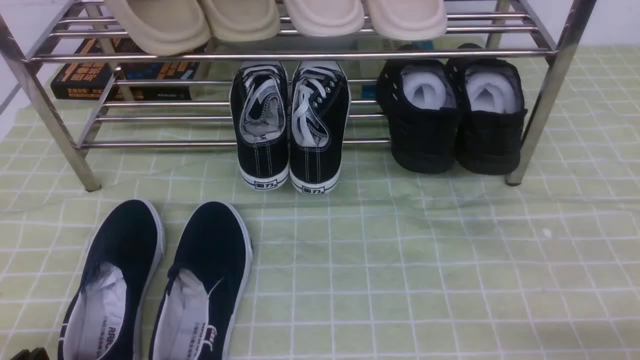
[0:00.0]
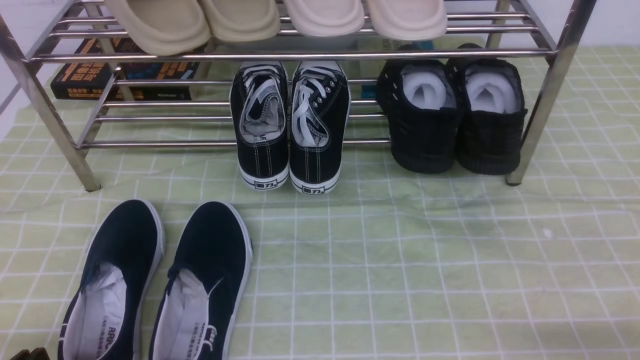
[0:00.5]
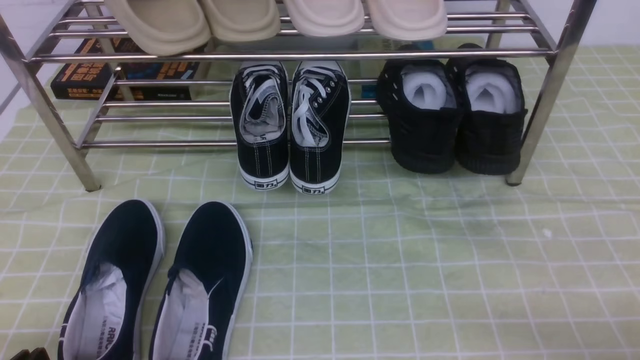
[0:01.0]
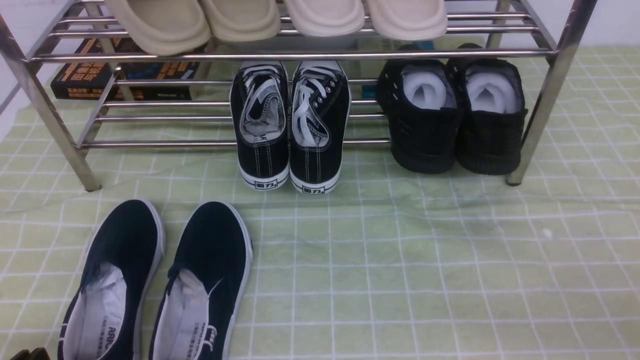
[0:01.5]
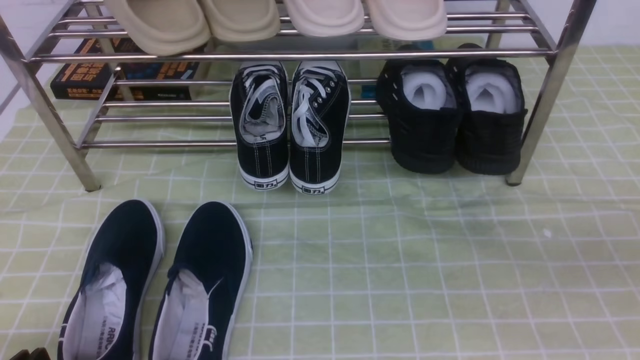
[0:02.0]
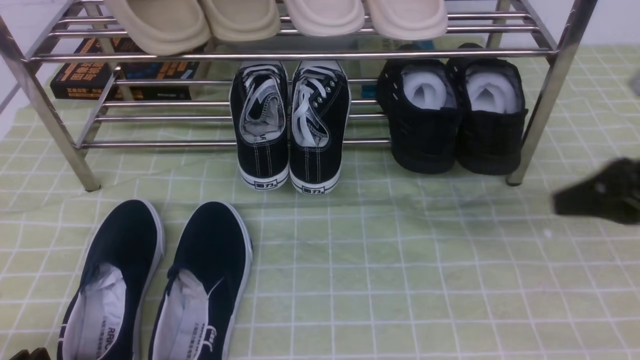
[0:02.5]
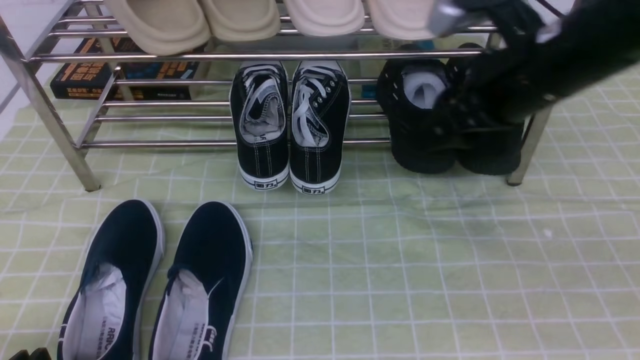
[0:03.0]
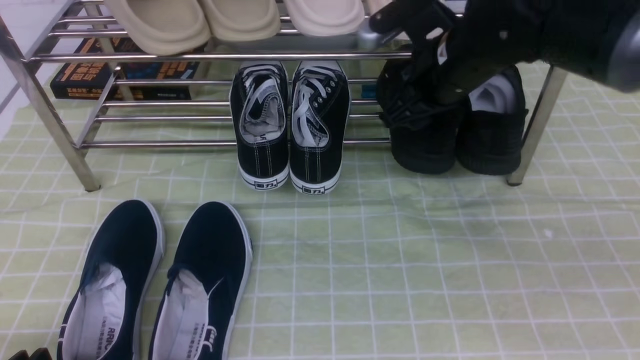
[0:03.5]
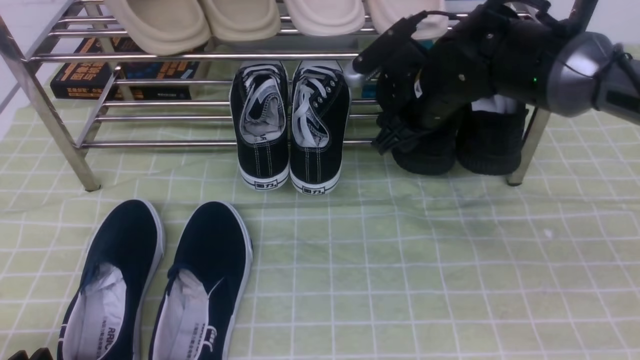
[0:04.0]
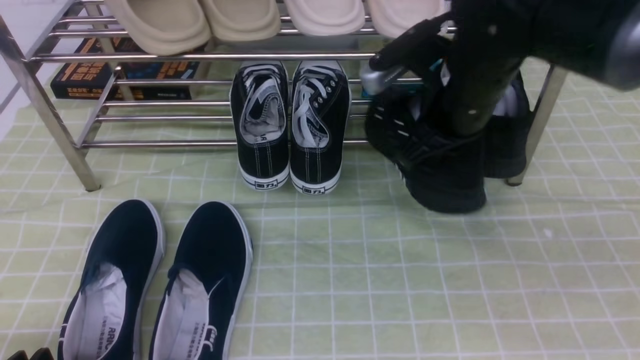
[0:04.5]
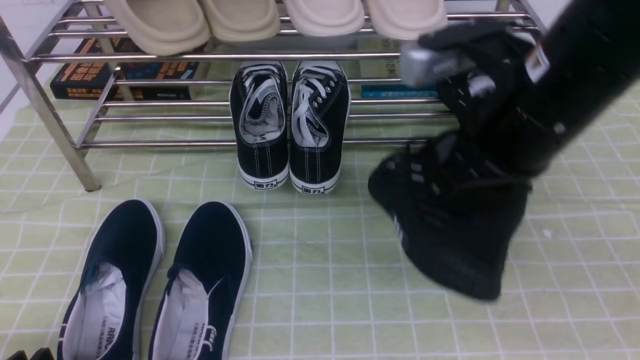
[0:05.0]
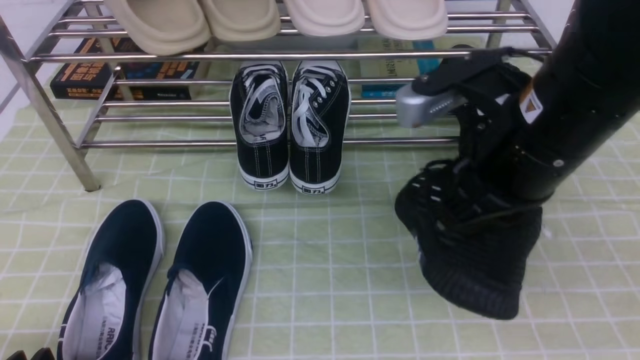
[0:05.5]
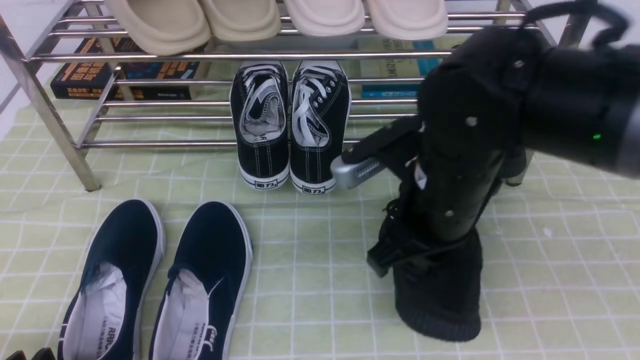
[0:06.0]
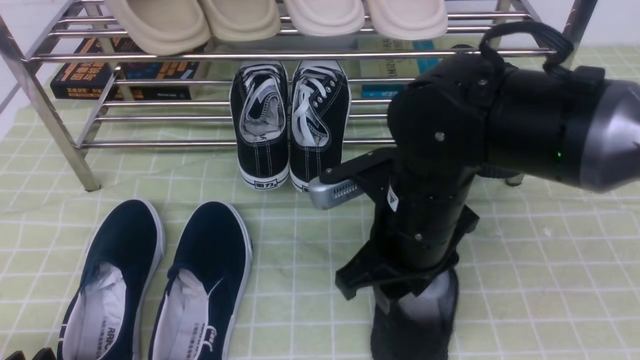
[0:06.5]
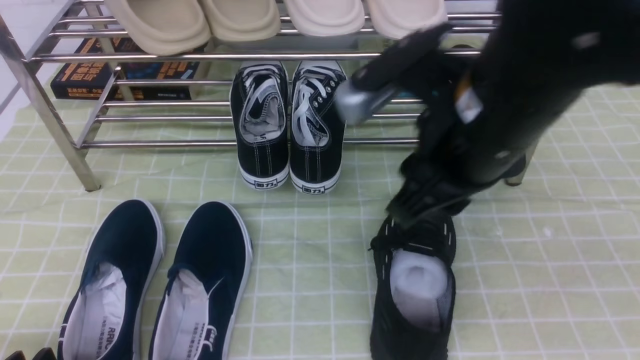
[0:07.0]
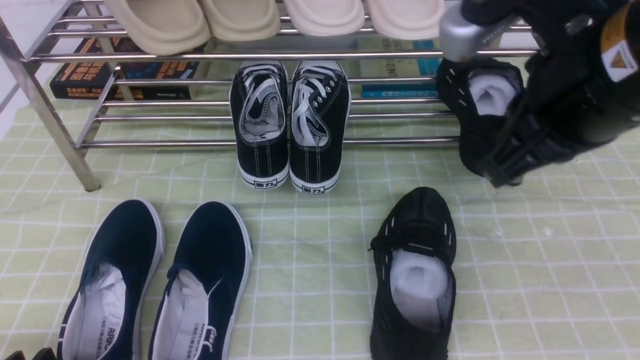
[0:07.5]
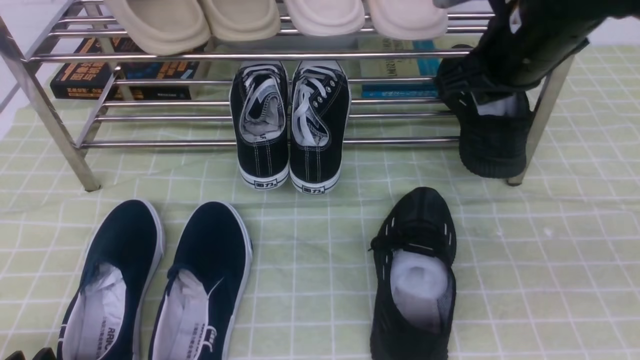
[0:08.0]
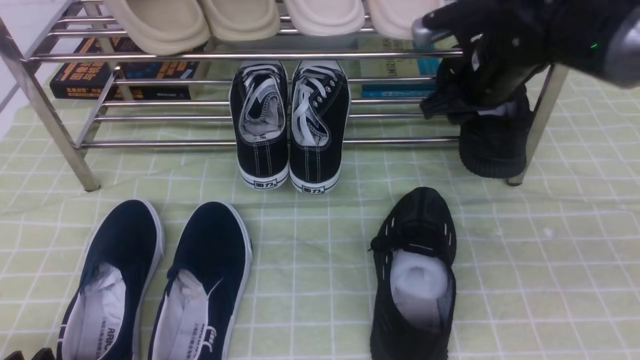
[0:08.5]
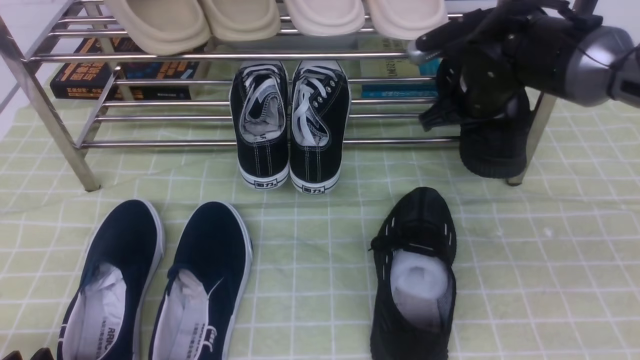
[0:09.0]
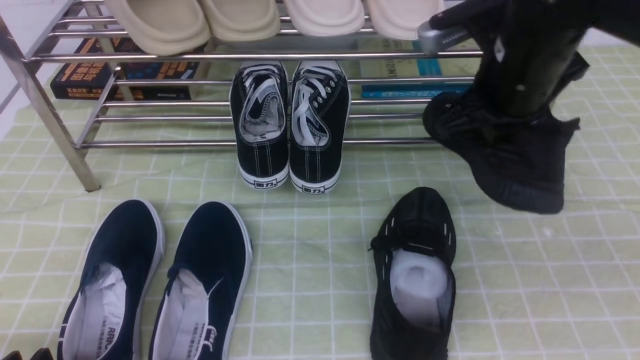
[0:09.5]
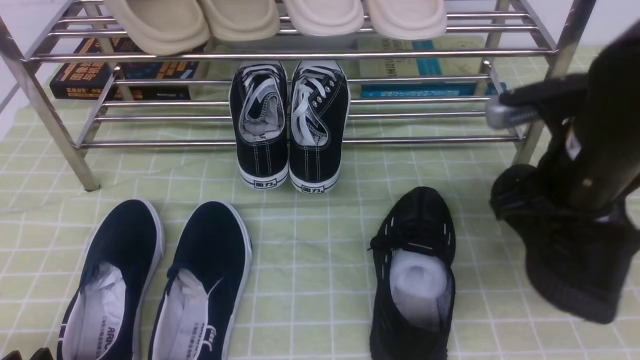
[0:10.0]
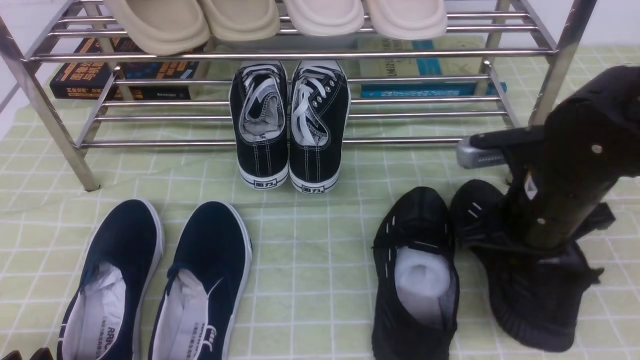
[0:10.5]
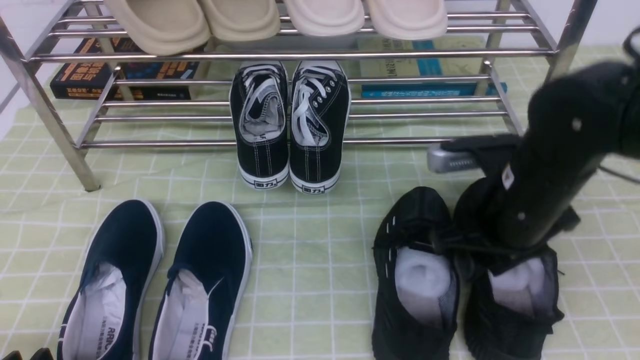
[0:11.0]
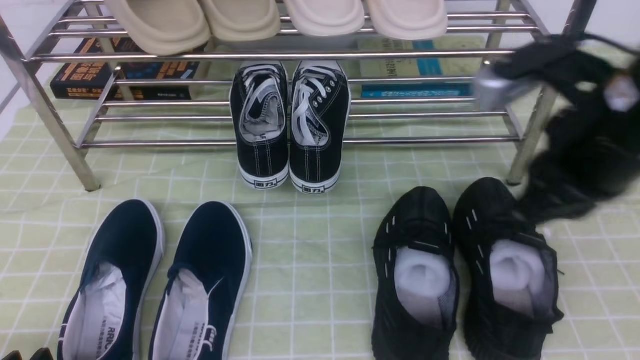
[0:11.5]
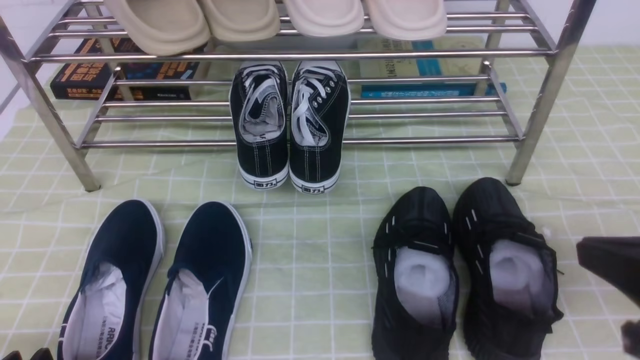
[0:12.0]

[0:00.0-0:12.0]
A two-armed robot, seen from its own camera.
Step, 0:00.0 to 0:04.0: use the right arm to clamp a shoe on the right side of the shoe rack.
Step, 0:04.5 to 0:06.5: use the right arm to take out the clamped shoe from the shoe rack and put it down.
Step, 0:07.0 to 0:08.5: use the right arm to clamp a shoe on the right side of the shoe rack.
Step, 0:09.0 to 0:11.0: use the right arm to take out the clamped shoe from the shoe rack and put it down.
0:02.0 to 0:04.0: The left gripper opens up. Meanwhile the right gripper moves forward and to the left, roughly 40 cm, and opens up.
0:04.0 to 0:06.0: The right gripper moves backward, about 15 cm, and closes its fingers.
0:06.0 to 0:08.0: The right gripper travels forward, upward and to the right by roughly 10 cm, and opens and closes again.
0:08.0 to 0:10.0: The right gripper shifts about 10 cm downward and backward, and opens and closes again.
0:10.0 to 0:12.0: The right gripper heads backward and to the right, covering some 15 cm, and opens, then closes once more.

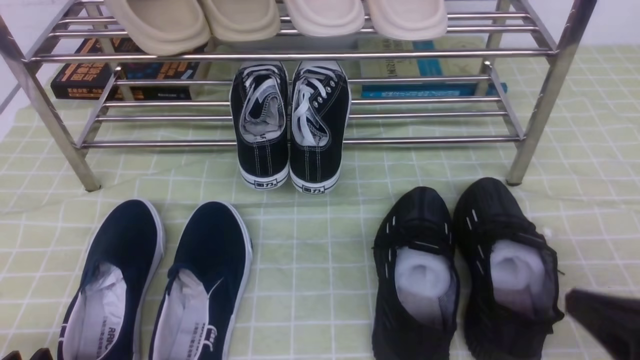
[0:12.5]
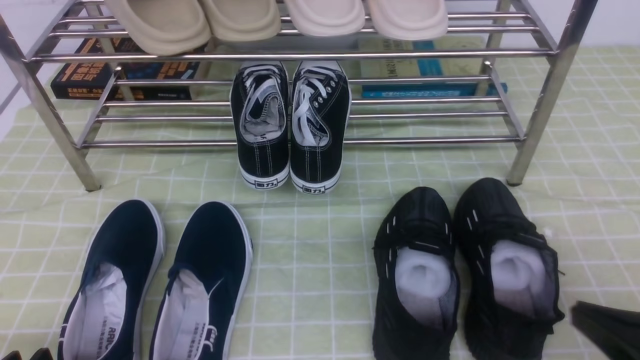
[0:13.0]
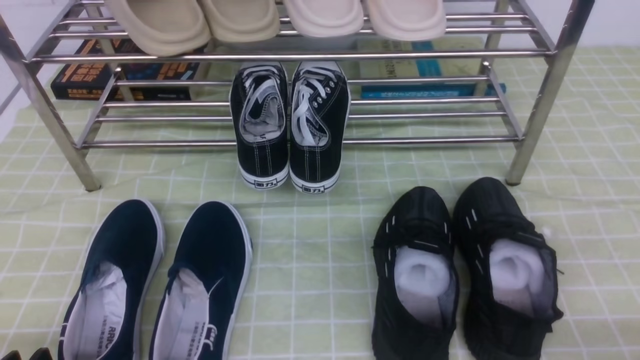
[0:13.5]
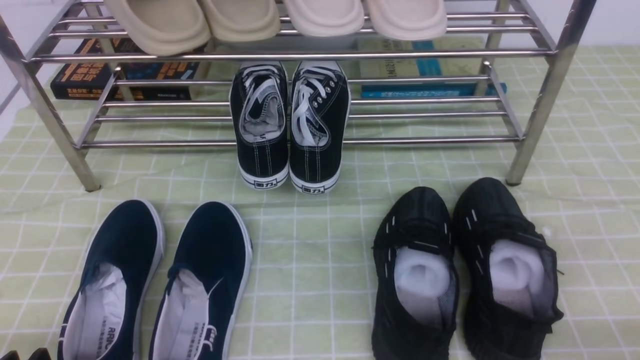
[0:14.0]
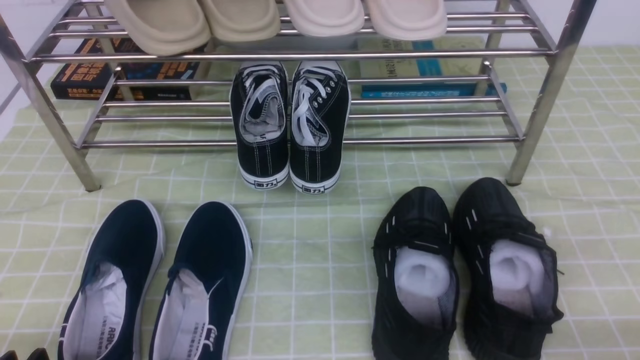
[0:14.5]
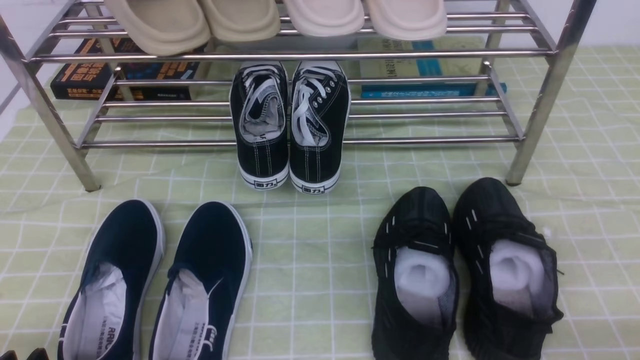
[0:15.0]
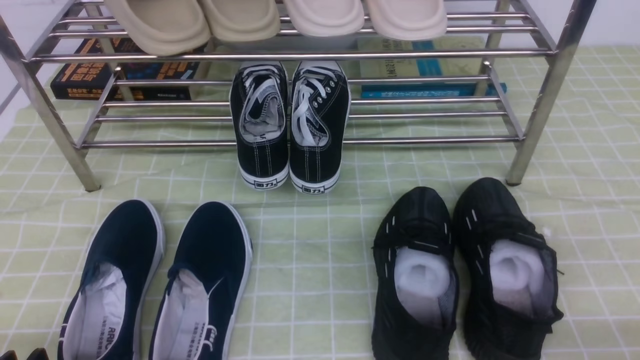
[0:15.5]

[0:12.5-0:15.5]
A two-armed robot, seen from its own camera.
0:12.5 to 0:14.0: The right gripper moves downward and to the right, roughly 10 cm.
0:14.0 to 0:15.5: The two grippers keep their place.

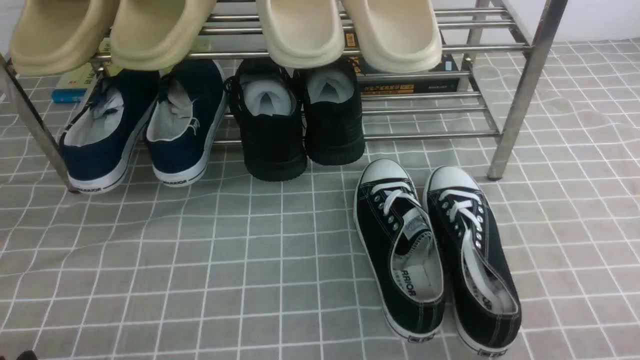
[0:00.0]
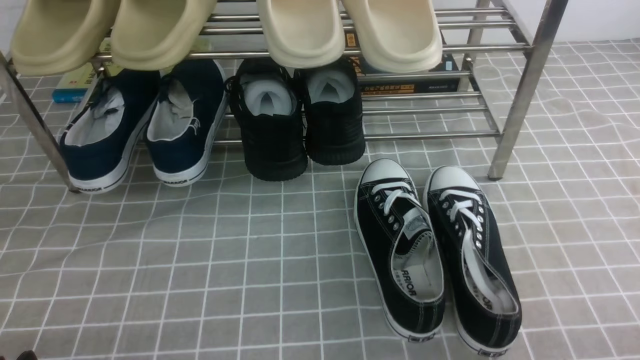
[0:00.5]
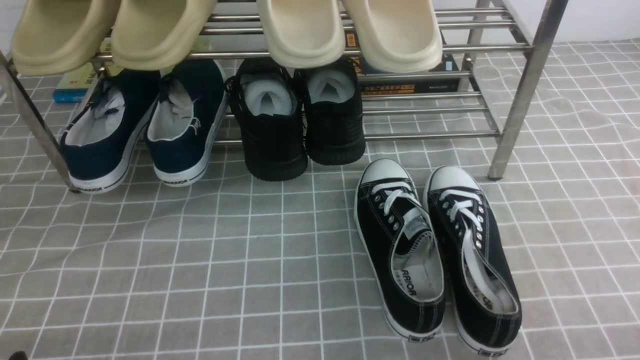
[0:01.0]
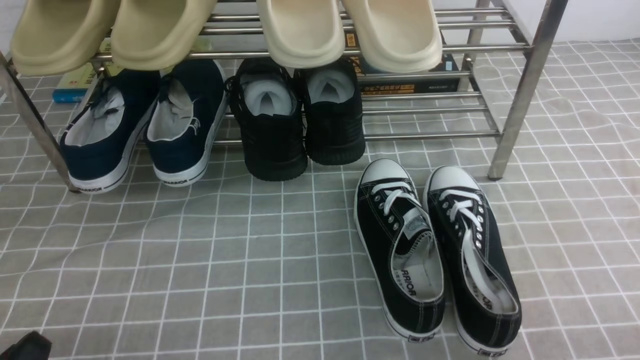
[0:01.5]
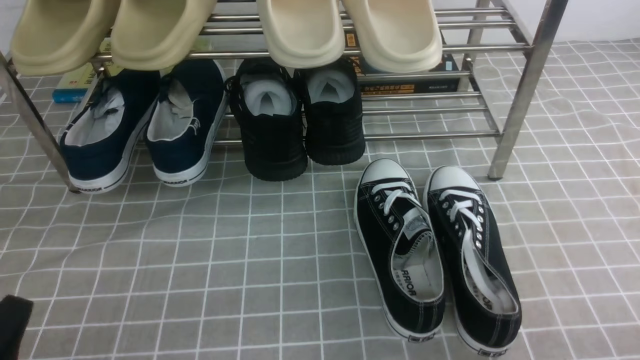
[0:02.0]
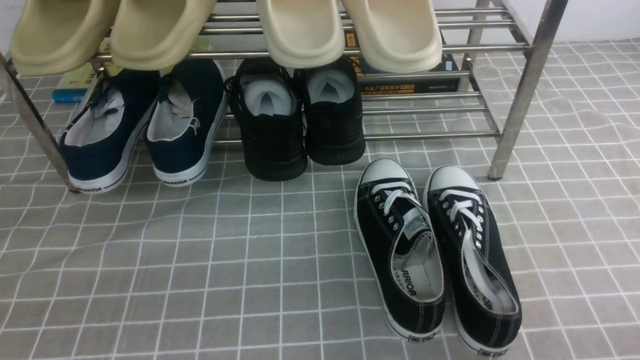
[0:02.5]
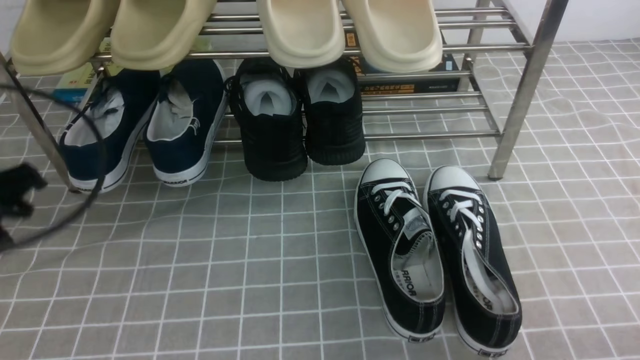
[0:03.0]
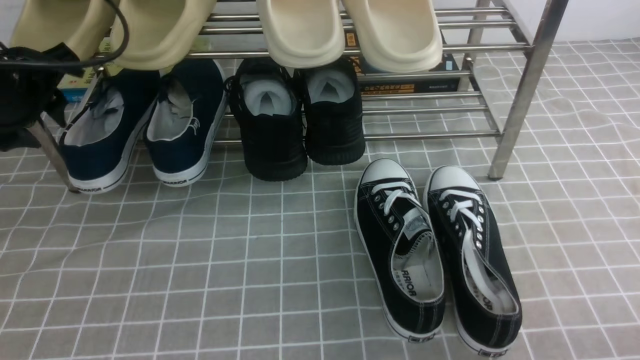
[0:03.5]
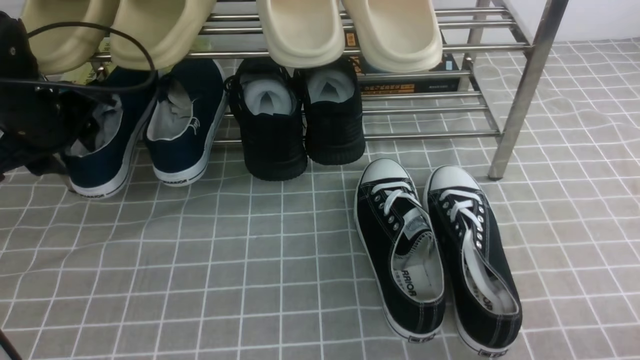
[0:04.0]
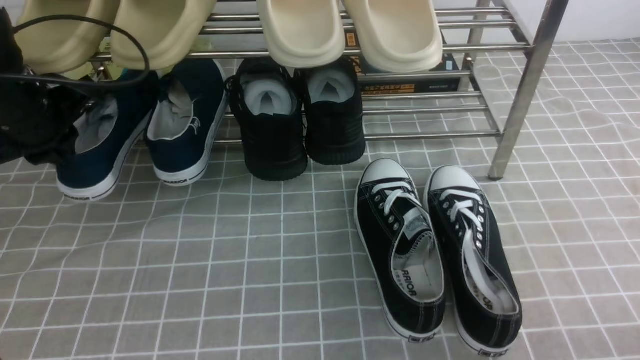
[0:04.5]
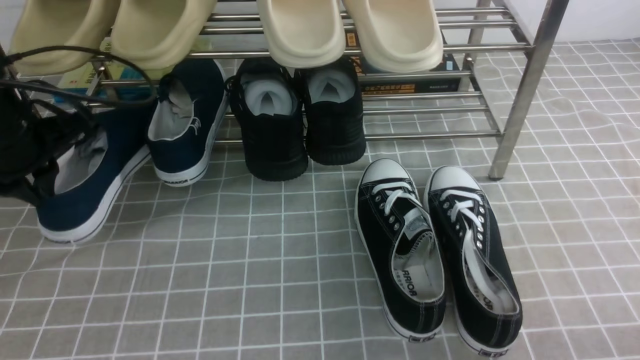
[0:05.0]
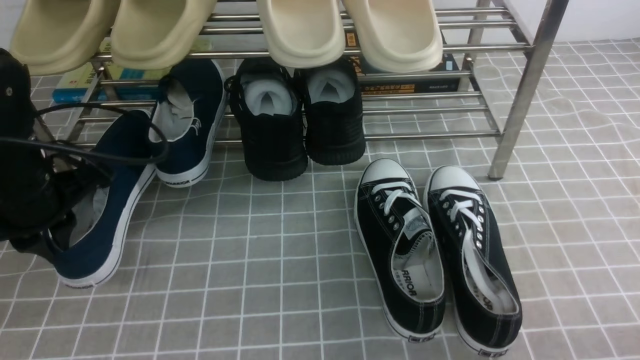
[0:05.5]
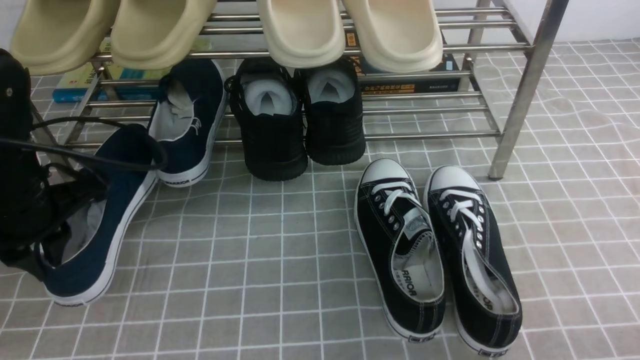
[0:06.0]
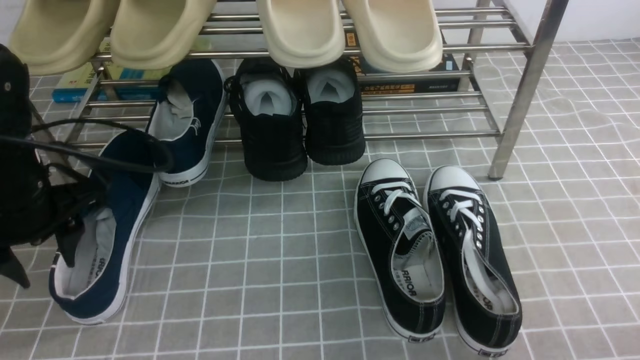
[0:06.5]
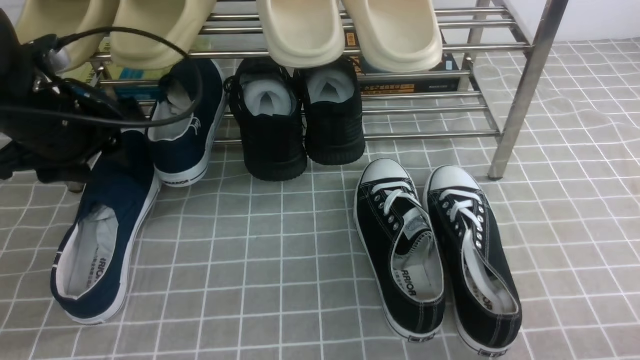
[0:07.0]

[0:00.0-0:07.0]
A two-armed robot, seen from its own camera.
Step, 0:00.0 to 0:04.5: use the left arm to clamp a shoe on the left side of the shoe rack.
Step, 0:05.0 to 0:06.0: Use your left arm to remove the clamped shoe from the shoe rack and put it down.
0:02.0 to 0:03.5: The left gripper moves forward and upward, some 30 cm, and closes, then reopens.
0:03.5 to 0:05.0: The left gripper closes its fingers.
0:05.0 to 0:07.0: The left gripper opens.
